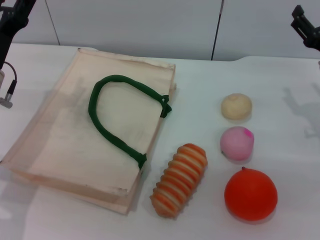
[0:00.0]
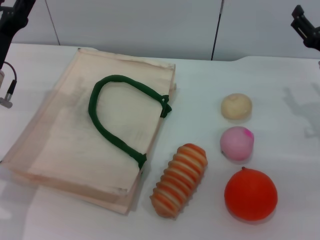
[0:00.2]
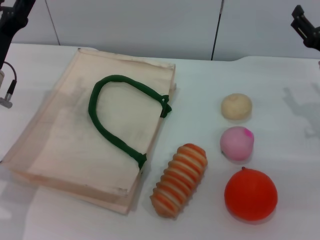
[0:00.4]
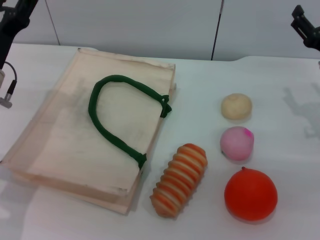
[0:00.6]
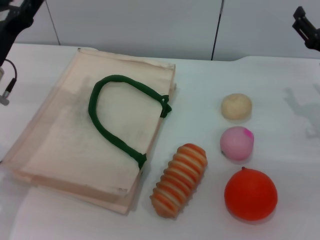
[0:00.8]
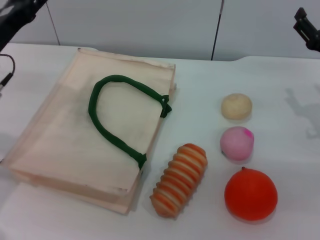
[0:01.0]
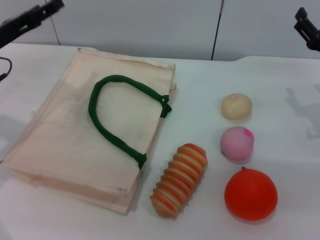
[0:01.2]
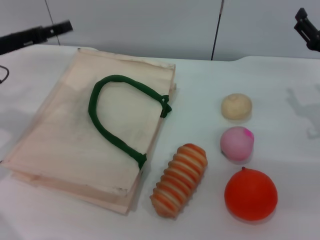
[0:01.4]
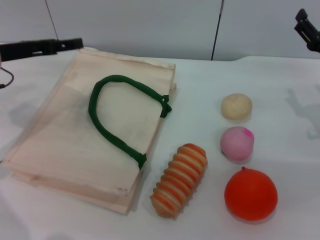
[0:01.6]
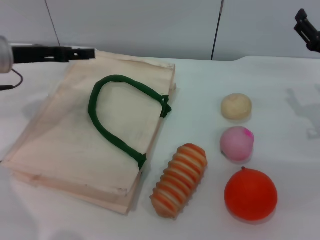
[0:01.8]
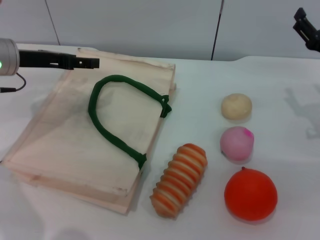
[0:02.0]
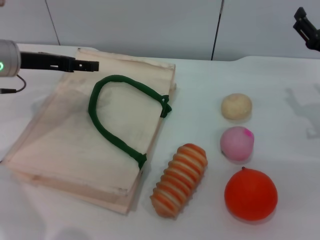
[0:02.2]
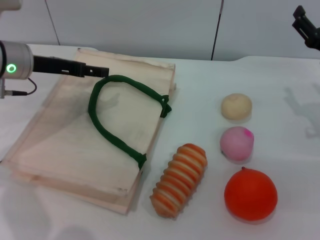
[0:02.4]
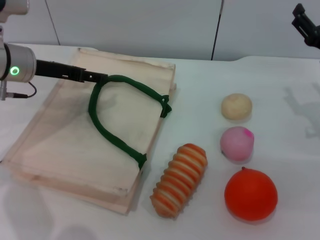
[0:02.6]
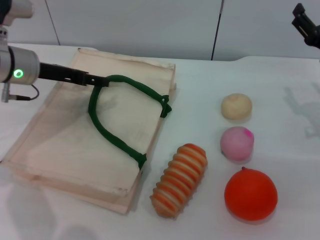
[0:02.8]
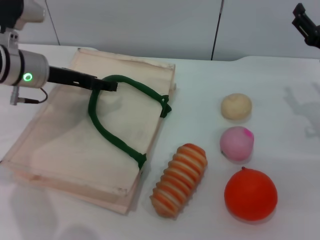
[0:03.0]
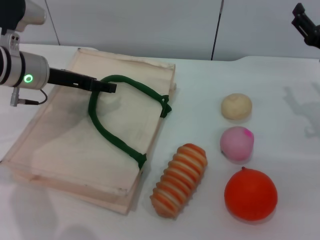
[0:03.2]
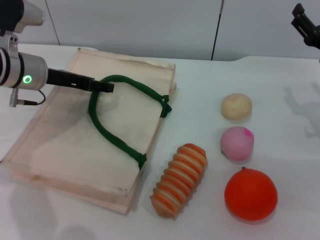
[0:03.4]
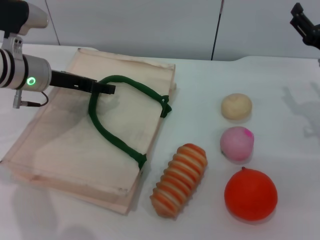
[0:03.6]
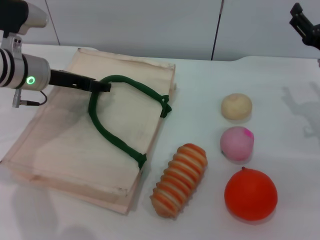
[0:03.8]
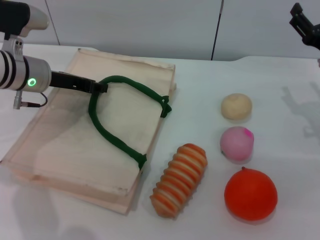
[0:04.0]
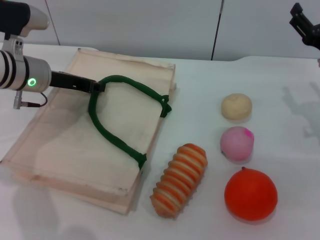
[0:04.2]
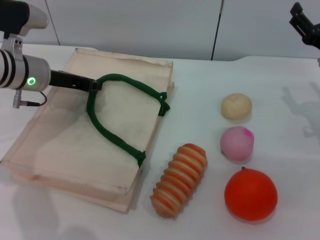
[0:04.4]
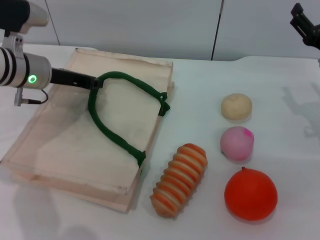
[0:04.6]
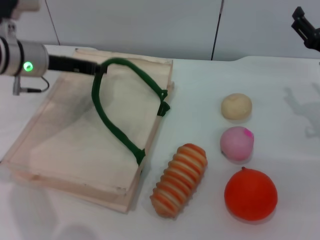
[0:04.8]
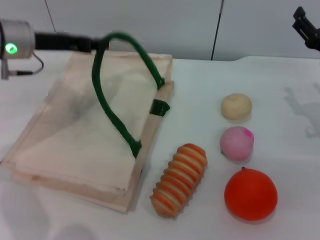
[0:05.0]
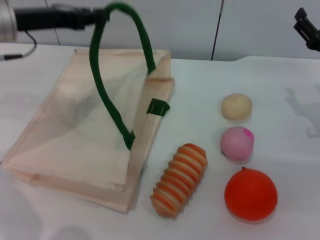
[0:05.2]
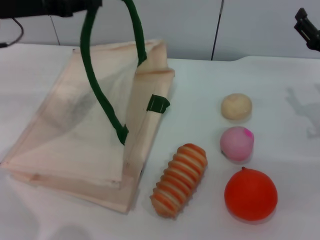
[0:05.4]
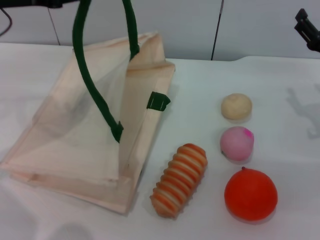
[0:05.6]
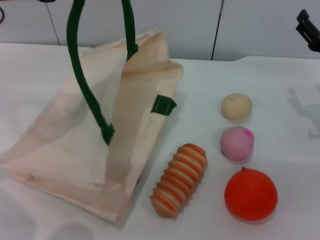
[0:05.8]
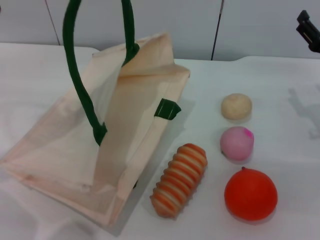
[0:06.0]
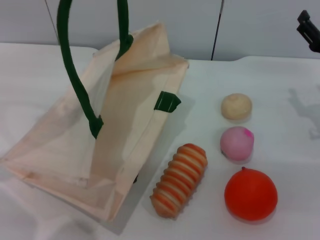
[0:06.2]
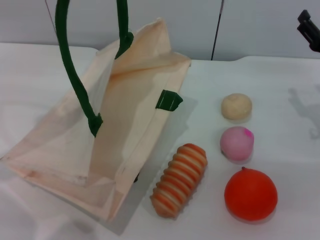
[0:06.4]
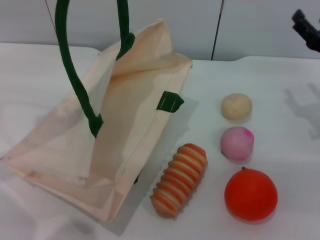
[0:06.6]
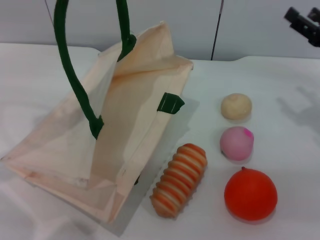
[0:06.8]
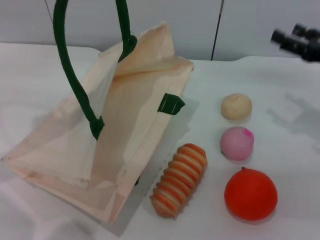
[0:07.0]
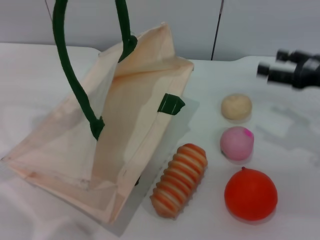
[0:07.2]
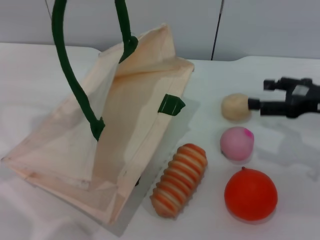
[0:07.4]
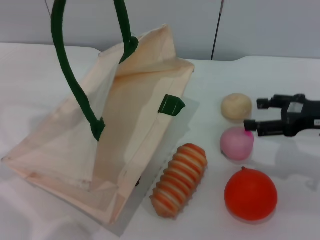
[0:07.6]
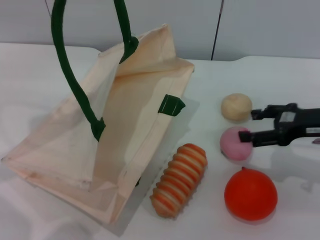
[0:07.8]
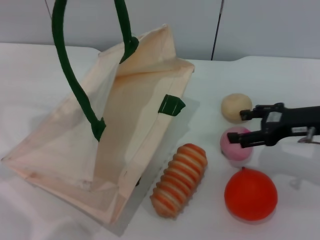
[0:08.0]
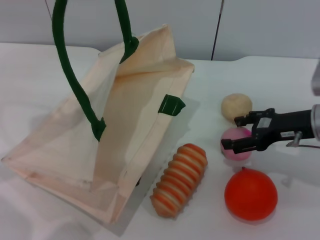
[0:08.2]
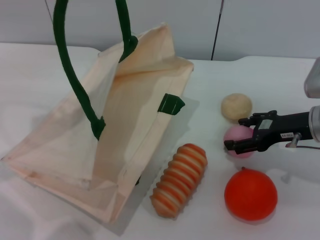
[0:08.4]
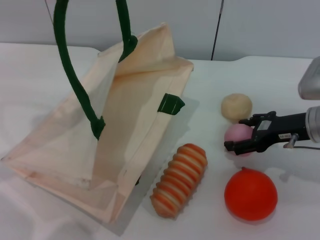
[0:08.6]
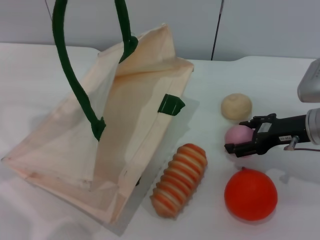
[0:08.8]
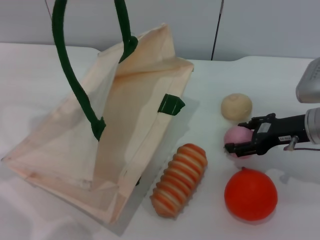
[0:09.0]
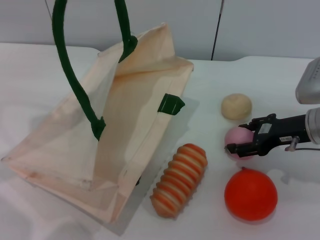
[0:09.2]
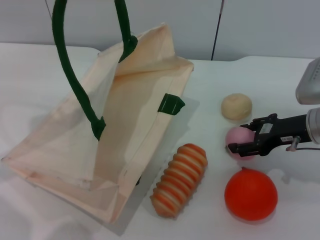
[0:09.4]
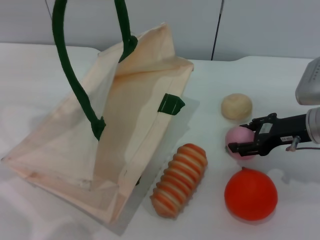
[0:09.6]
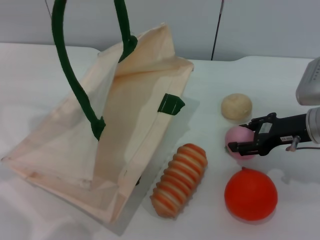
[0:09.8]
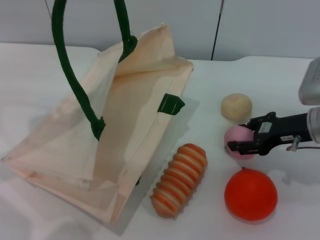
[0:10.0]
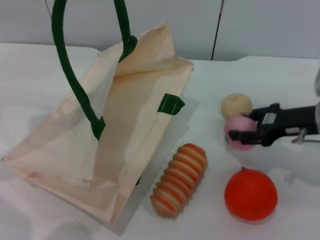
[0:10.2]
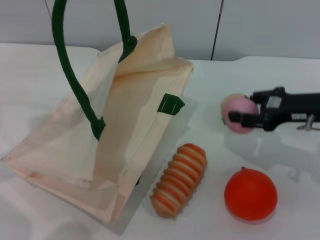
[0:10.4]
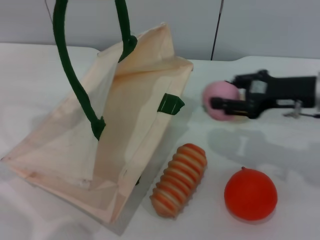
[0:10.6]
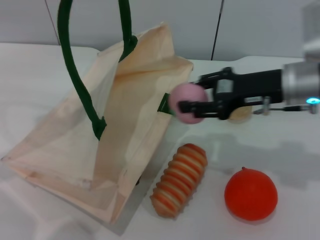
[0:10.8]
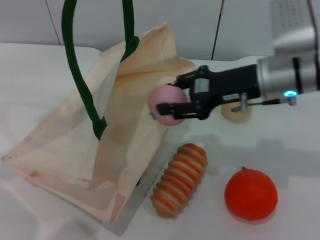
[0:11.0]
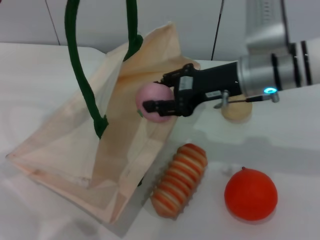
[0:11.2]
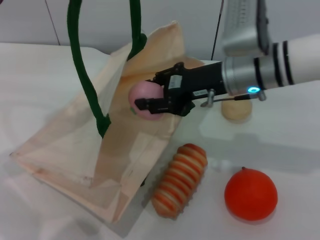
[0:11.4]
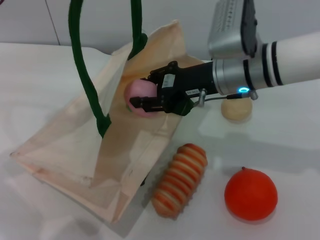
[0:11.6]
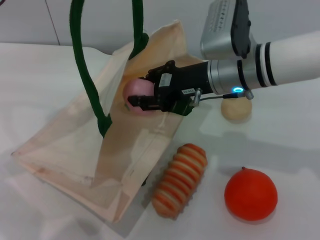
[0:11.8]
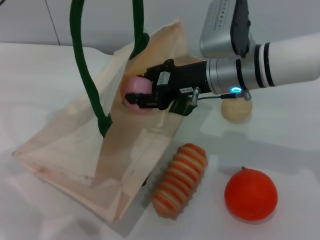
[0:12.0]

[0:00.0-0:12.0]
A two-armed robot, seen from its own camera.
Task of the whole recording: pick up the peach from the table and place it in the white handbag.
Step, 0.0 to 6.6 s: Lift the woven bag with the left gripper to open it.
Step, 6.8 to 10.2 s: Pick up the peach with the right gripper.
0.0 to 1.6 s: The left gripper shifts roughly 5 cm upward.
1.6 to 3.0 s: The left gripper shifts some 5 cm to the right.
3.0 to 4.4 s: The left gripper closes up.
4.4 to 6.0 s: The left gripper is displaced upward by approximately 15 cm.
7.6 to 9.0 s: The right gripper ends up roughly 5 cm from where it was.
9.0 to 10.4 s: The right gripper closes.
10.4 to 12.0 s: The right gripper heads to the left, covering some 15 cm.

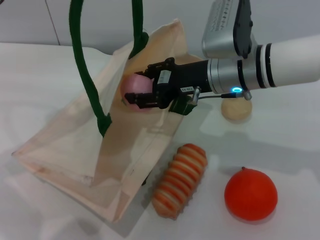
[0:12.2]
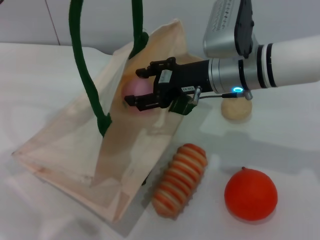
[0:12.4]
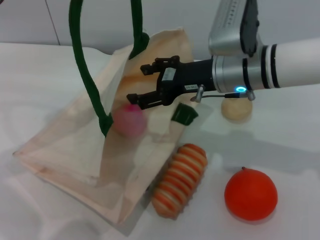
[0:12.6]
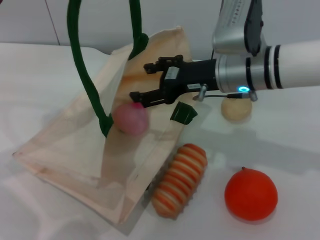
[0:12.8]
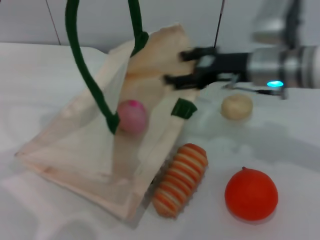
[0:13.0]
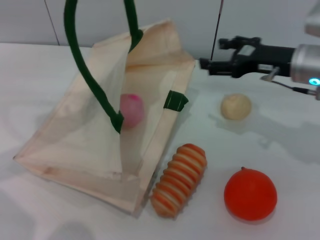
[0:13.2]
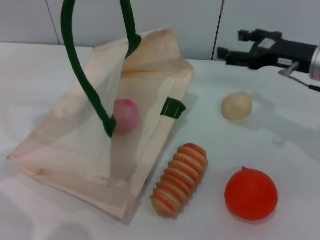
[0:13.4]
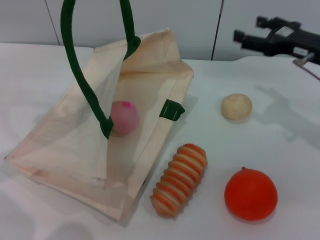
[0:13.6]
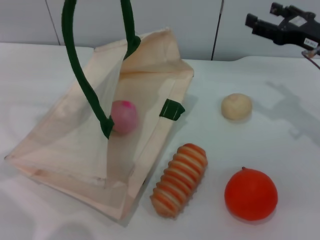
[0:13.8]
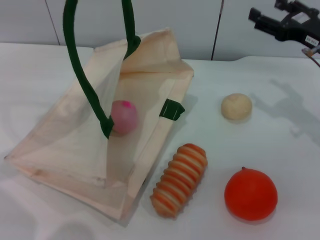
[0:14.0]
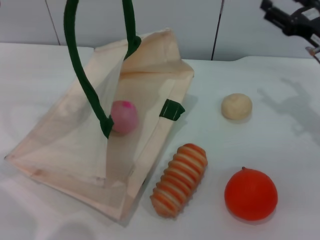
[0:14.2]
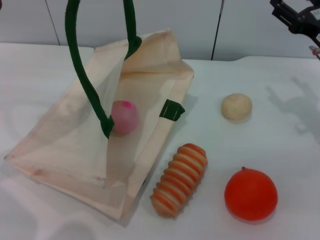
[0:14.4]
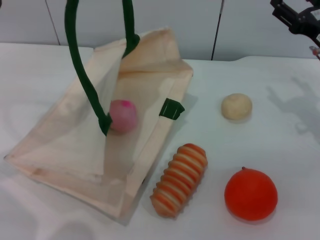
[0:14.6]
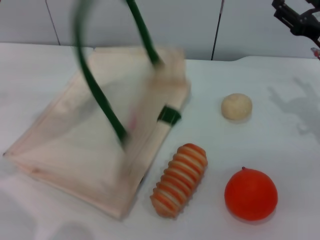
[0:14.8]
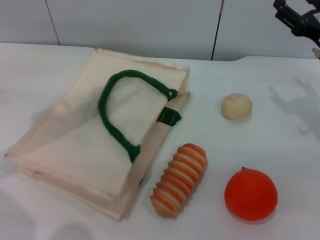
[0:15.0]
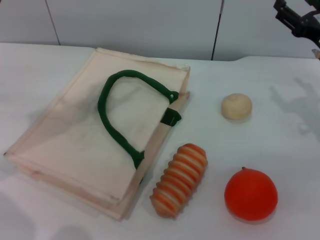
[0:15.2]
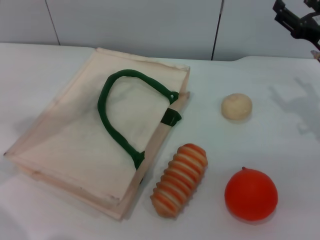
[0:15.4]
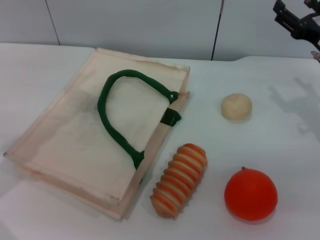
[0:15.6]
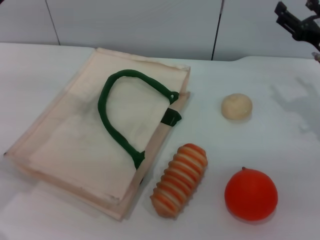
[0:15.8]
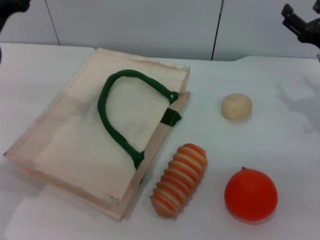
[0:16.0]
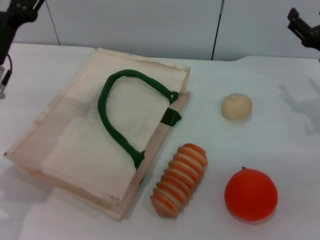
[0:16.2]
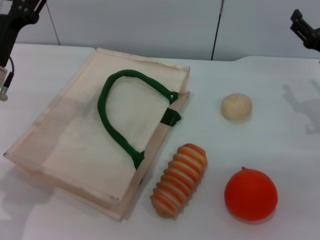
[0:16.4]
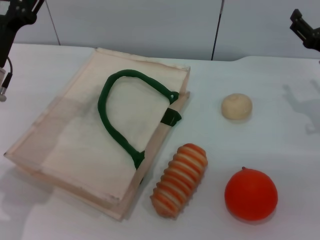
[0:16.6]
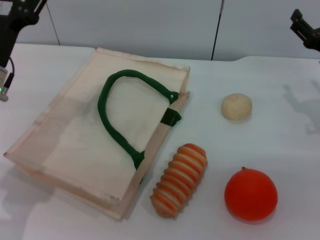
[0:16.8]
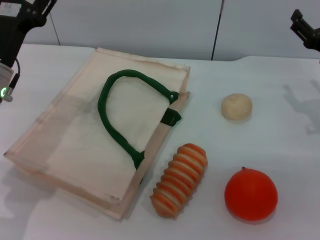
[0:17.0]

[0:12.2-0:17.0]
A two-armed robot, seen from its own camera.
Task of the whole recording: pick up the peach from the table and place it in the white handbag.
Step, 13.2 to 15.2 s: Lower the woven bag with the left gripper to close it.
12.2 to 13.8 s: The right gripper goes some 15 cm to the right, and opens up.
13.8 to 15.4 s: The left gripper opens up.
15.4 to 17.0 s: The left gripper heads downward, covering roughly 10 cm, and opens.

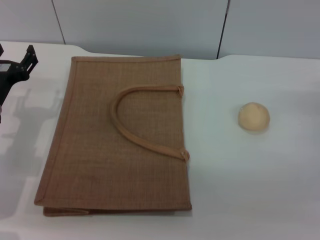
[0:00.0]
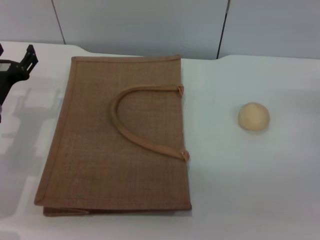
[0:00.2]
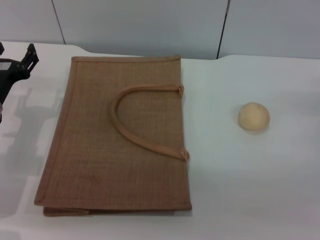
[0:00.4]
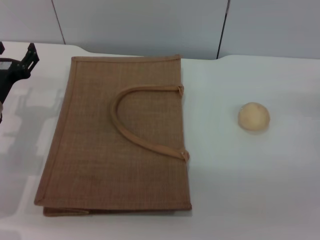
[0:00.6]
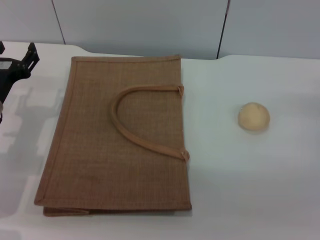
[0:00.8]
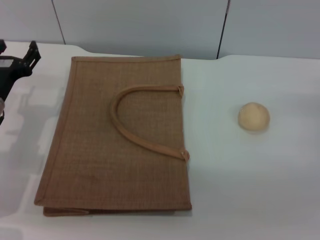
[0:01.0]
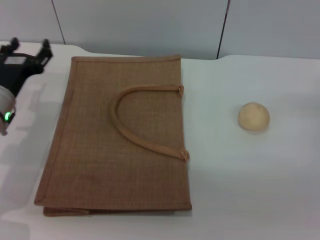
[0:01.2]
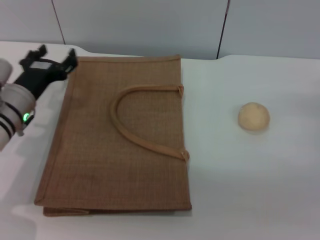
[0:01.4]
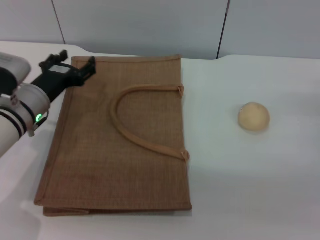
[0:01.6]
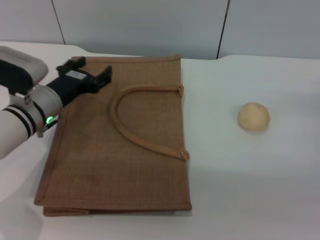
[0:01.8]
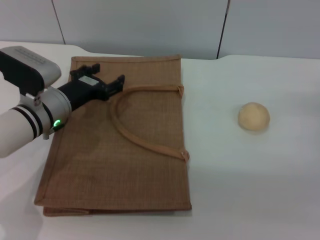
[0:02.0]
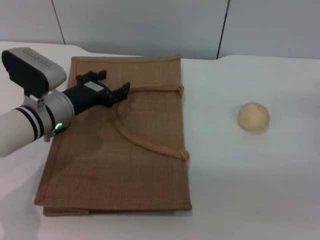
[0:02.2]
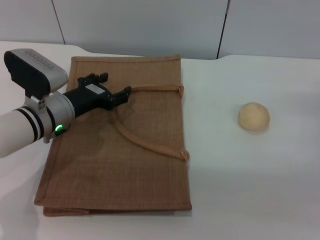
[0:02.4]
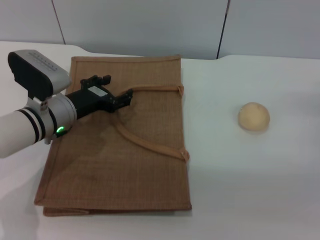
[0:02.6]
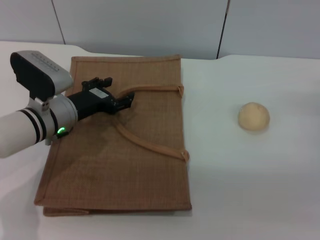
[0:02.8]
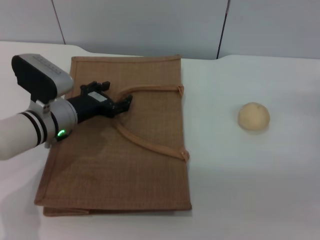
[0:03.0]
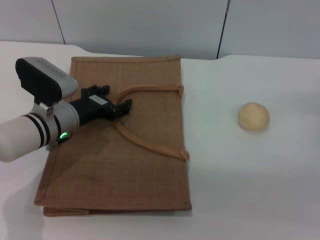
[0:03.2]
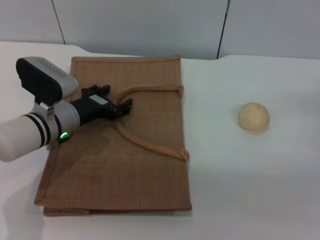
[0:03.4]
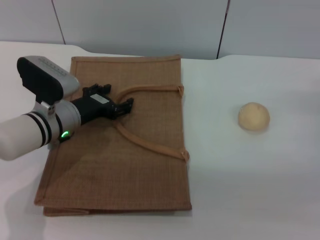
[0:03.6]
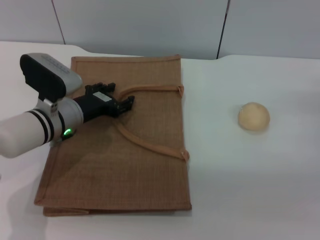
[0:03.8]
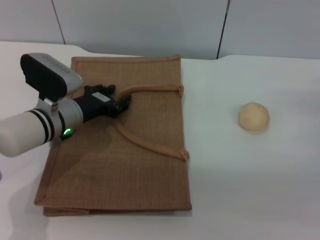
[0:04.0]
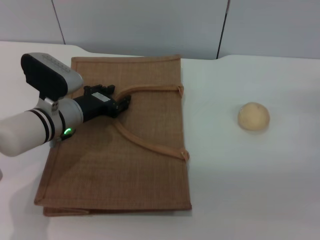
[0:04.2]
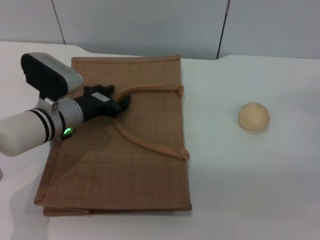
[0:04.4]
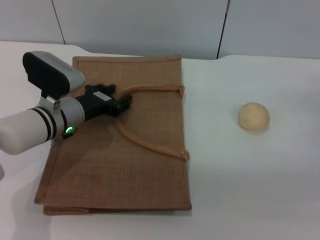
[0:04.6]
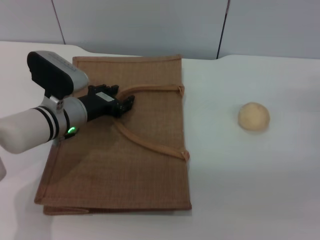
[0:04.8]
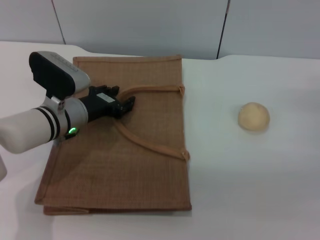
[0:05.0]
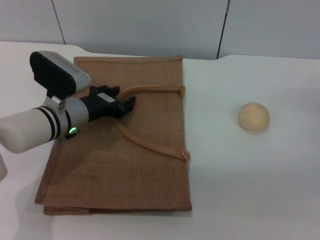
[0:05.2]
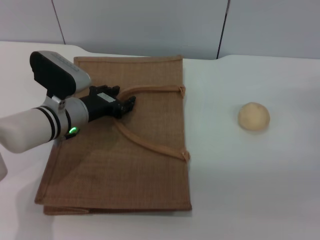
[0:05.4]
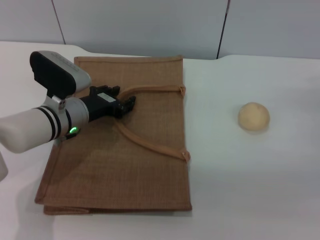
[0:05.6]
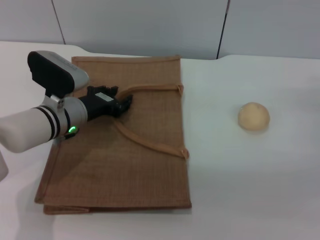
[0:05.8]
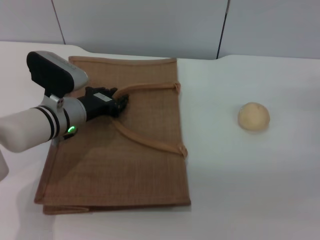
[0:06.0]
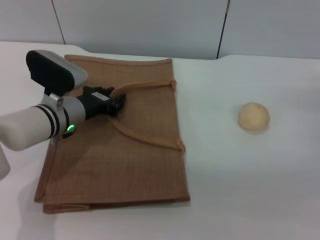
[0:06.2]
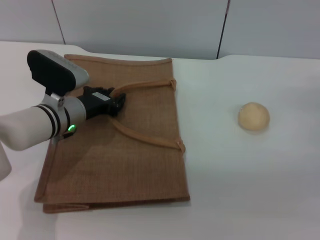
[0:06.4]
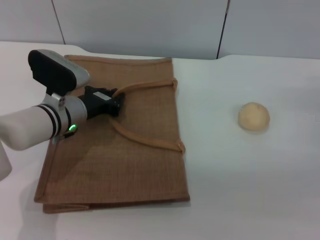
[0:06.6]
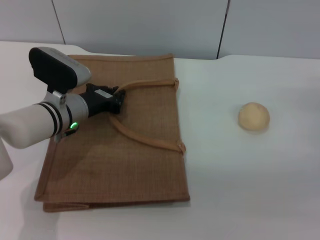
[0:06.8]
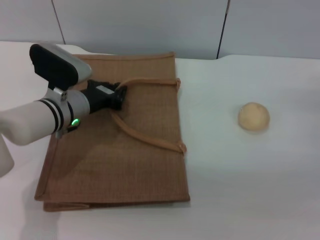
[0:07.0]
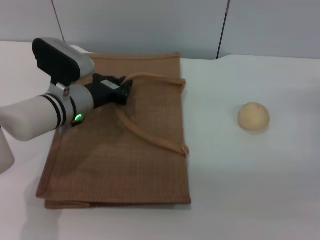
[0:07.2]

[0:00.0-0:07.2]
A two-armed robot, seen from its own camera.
Task of the whole recording: pick up the egg yolk pastry from the table and place it in the brown handbag.
0.0 to 1.4 s: The grippers stay close to where they were, moving slightly.
1.4 to 2.8 s: The left gripper changes place by roughly 5 cm.
2.8 to 4.4 s: The grippers move only a little.
4.4 to 5.8 s: Neither gripper changes place.
5.8 to 7.2 s: The left gripper closes.
